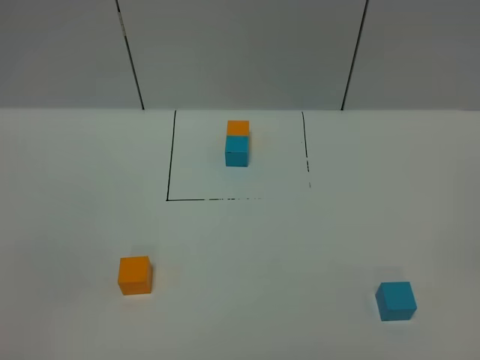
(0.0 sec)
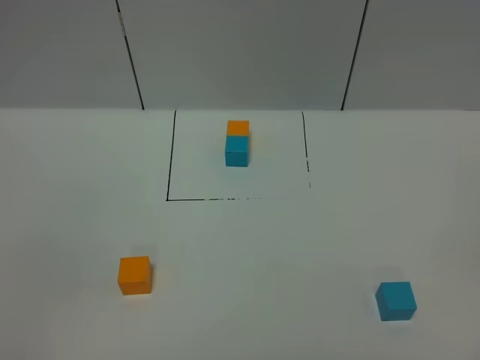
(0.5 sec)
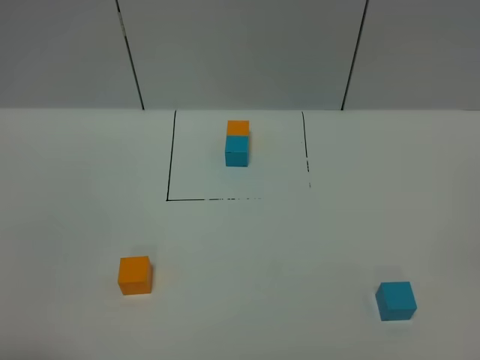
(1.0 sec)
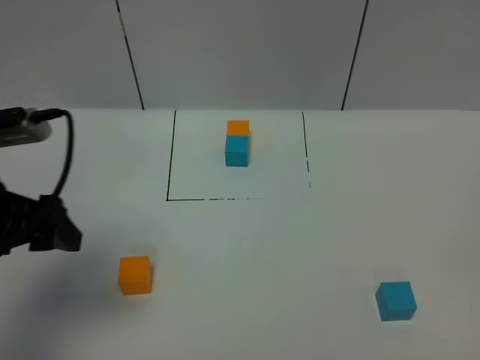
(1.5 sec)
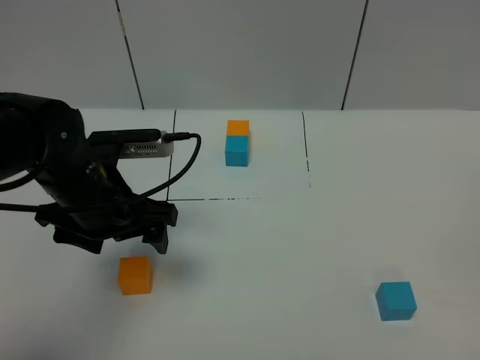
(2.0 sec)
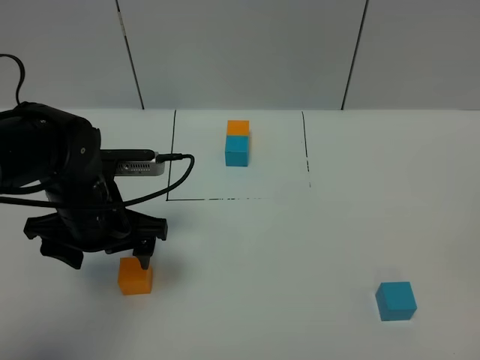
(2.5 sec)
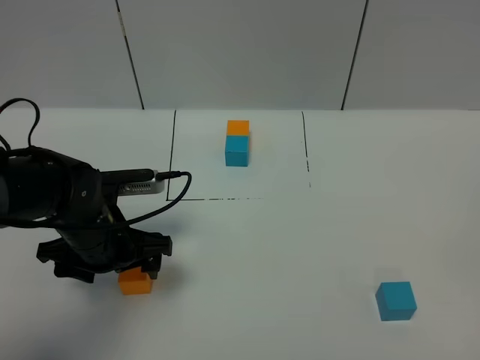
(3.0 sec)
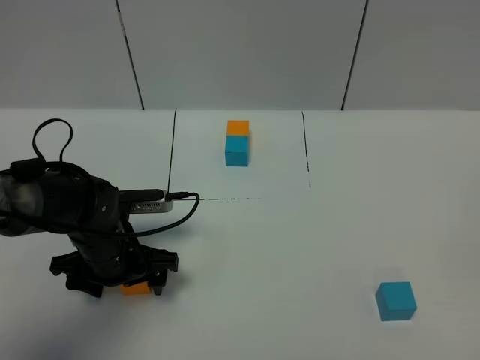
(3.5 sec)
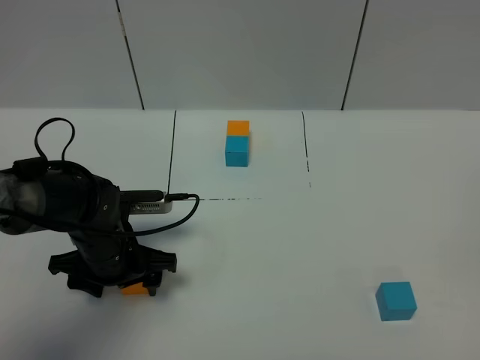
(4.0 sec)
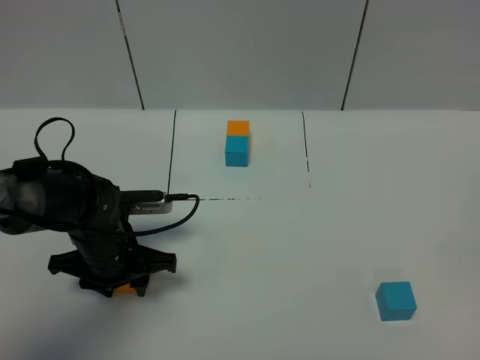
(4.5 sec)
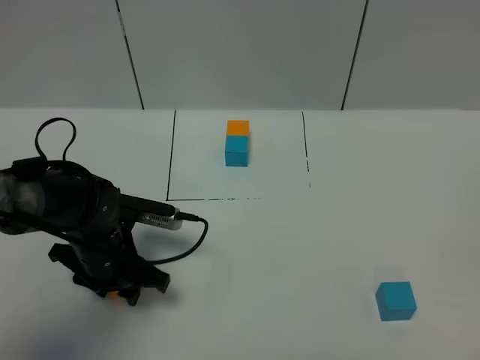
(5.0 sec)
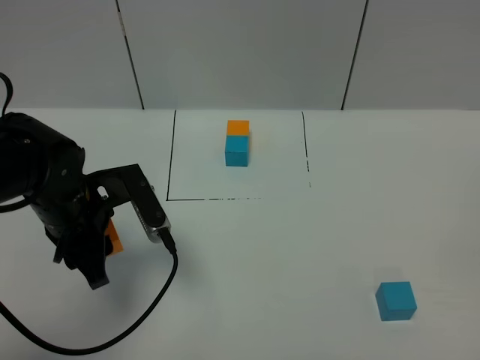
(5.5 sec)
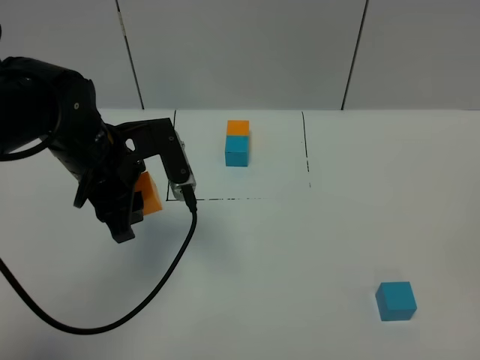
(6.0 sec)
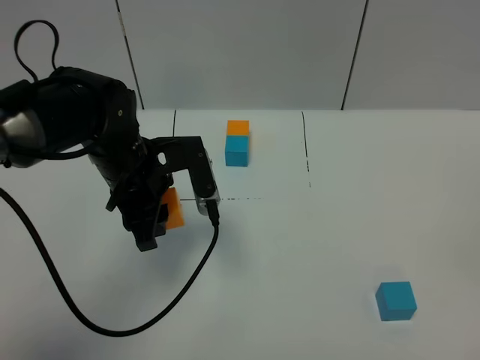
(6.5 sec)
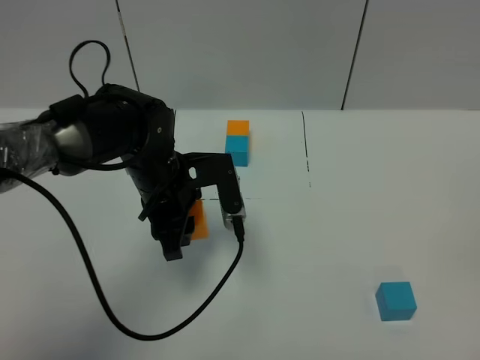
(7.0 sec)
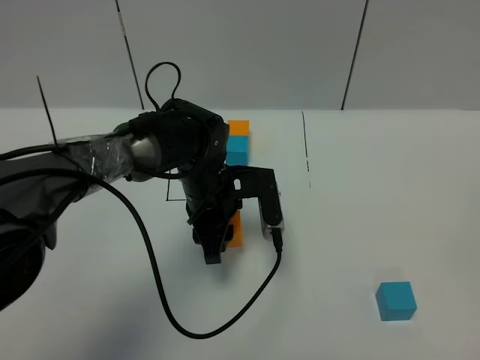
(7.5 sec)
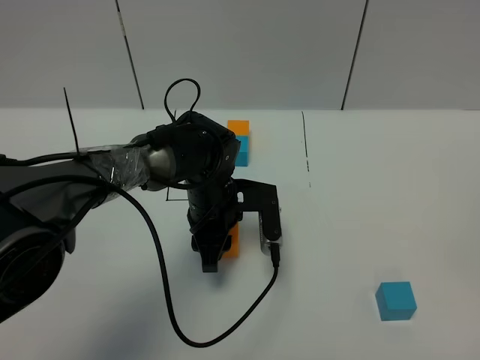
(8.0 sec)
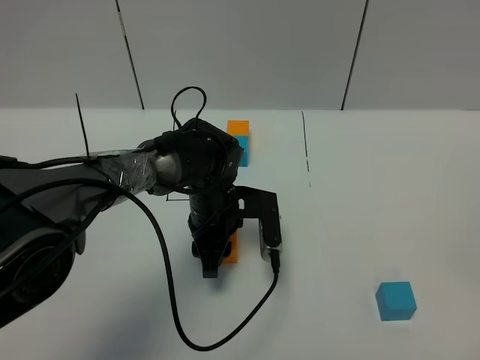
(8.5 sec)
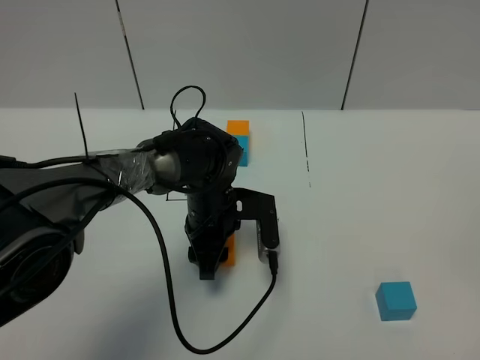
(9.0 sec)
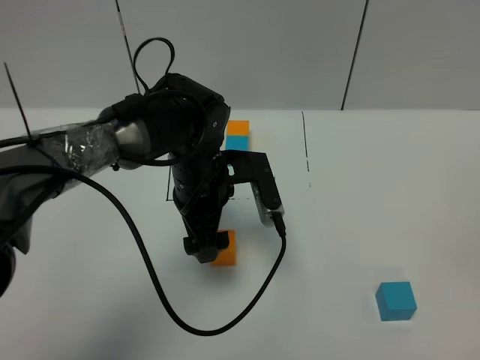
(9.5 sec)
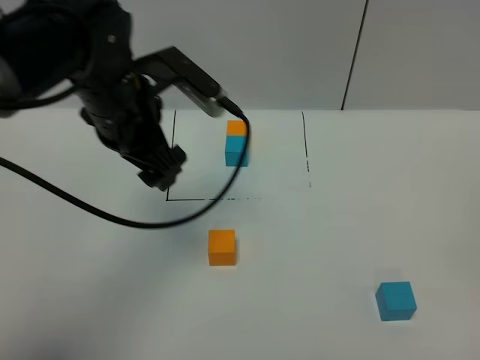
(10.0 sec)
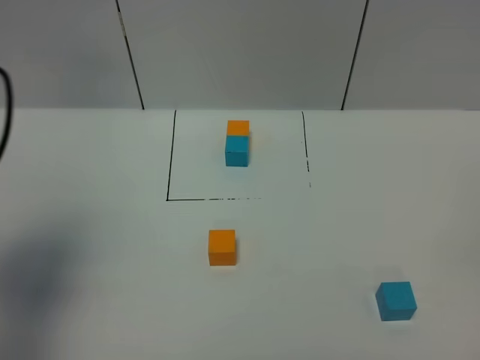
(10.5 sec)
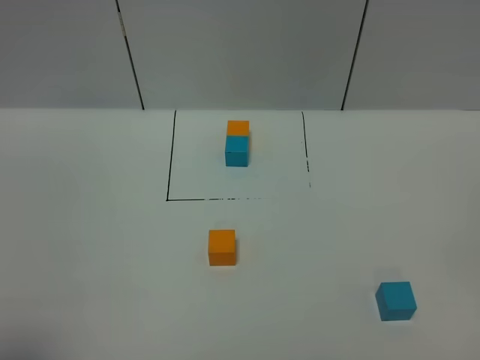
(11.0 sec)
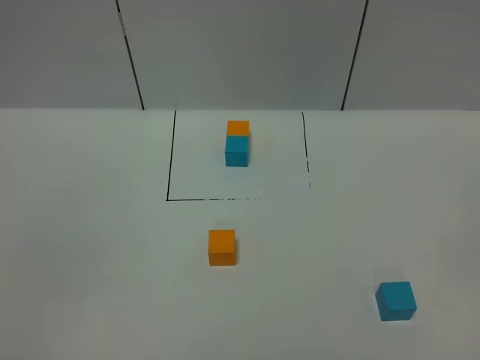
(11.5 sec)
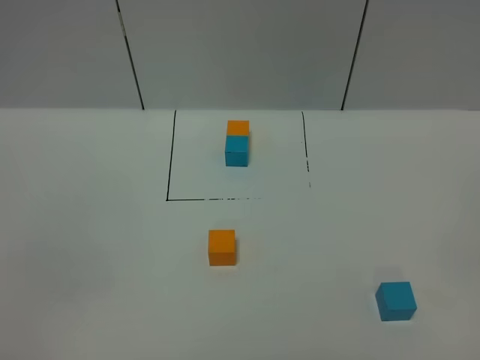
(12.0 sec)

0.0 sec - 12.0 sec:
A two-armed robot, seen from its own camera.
Task of the whole recording: According to the building block template in front, assemble the scattered blocks together.
Step, 1.5 sec - 9.0 sec: Put the orange cube in the center of the table.
0.0 sec - 2.0 sec: The left gripper travels forward by approximately 30 cm.
2.0 sec - 4.0 sec: The left gripper goes some 10 cm downward.
4.0 sec - 6.0 sec: The left gripper heads upward, covering about 15 cm, and closes up.
6.0 sec - 8.0 sec: The left gripper moves downward and to the right, approximately 15 cm.
8.0 sec - 10.0 sec: The left gripper goes about 20 cm upward and to the left, and opens its fingers.
10.0 sec - 12.0 sec: The left gripper shifts some 35 cm backward, and closes up.

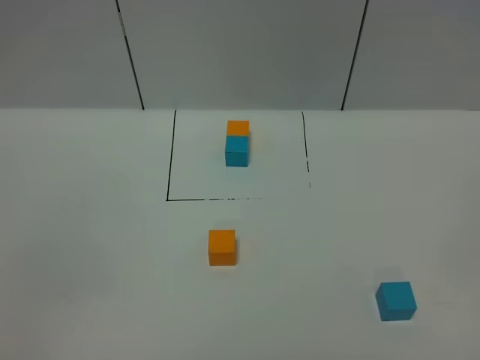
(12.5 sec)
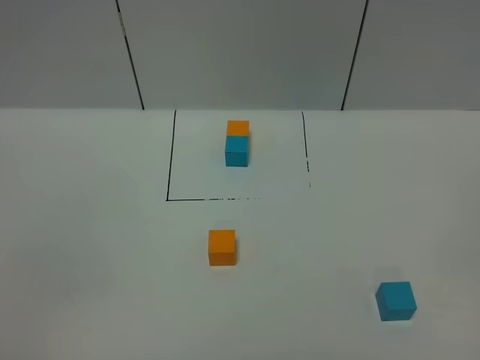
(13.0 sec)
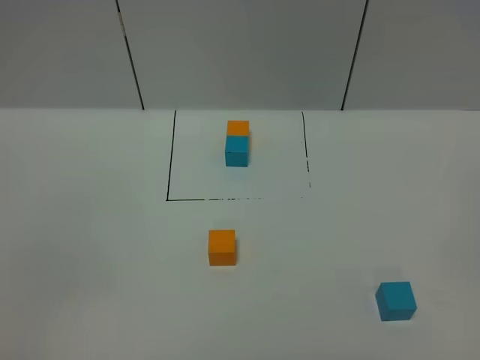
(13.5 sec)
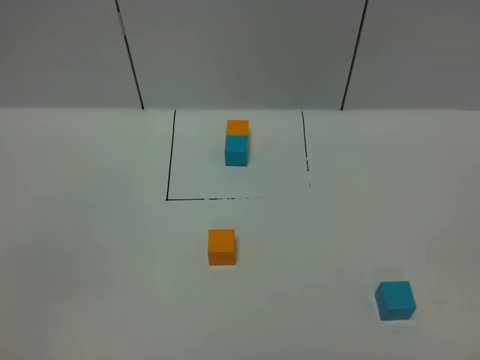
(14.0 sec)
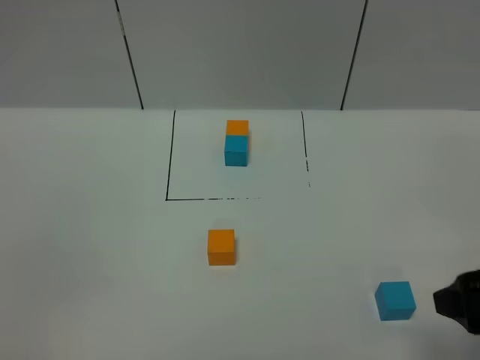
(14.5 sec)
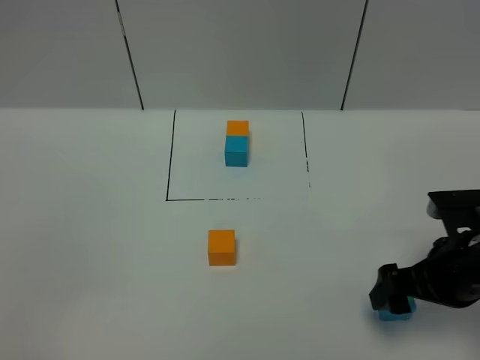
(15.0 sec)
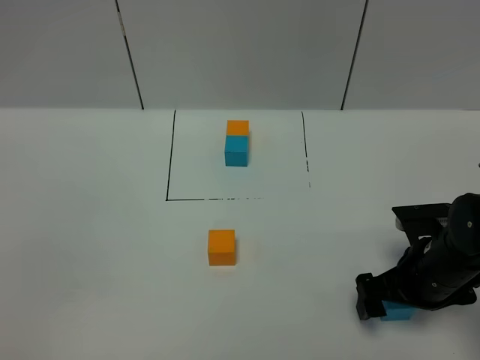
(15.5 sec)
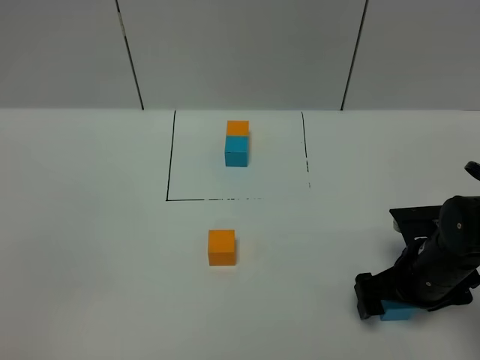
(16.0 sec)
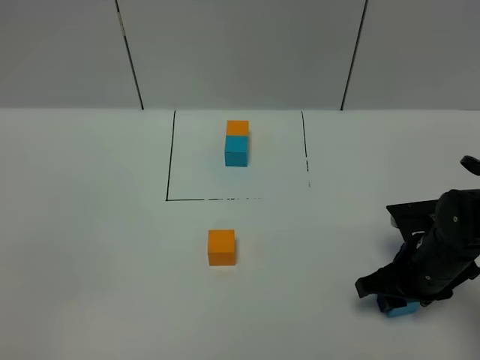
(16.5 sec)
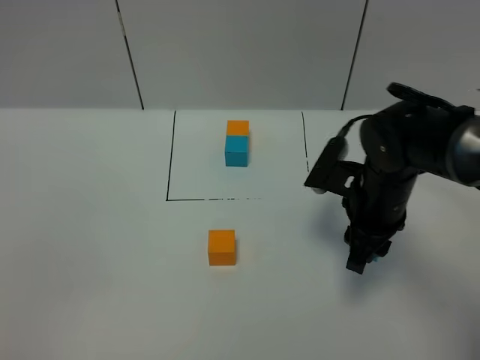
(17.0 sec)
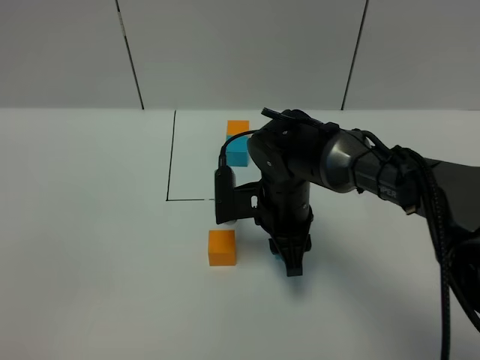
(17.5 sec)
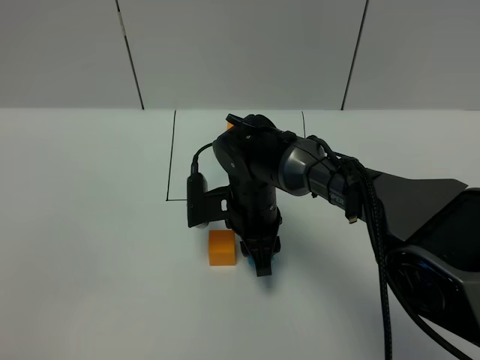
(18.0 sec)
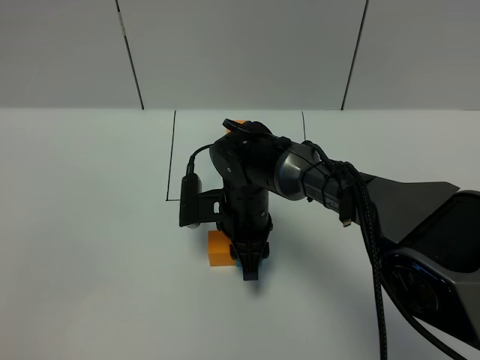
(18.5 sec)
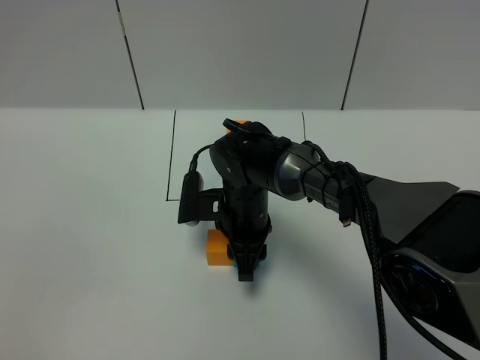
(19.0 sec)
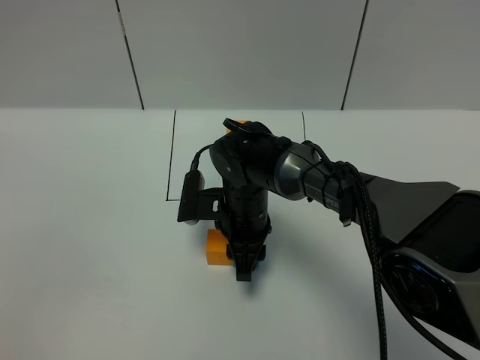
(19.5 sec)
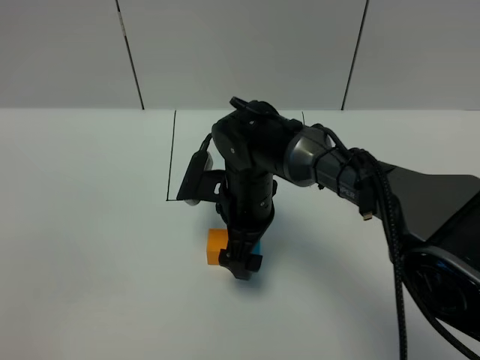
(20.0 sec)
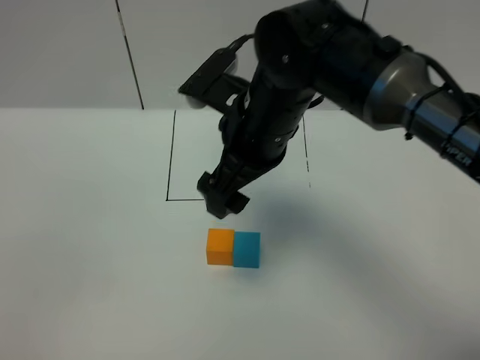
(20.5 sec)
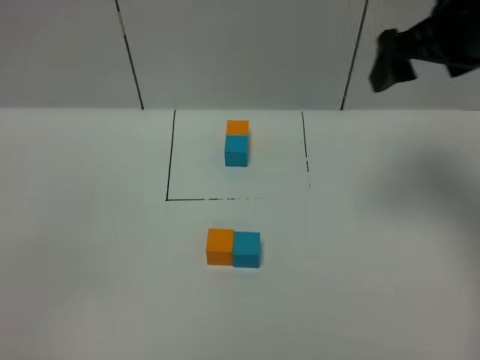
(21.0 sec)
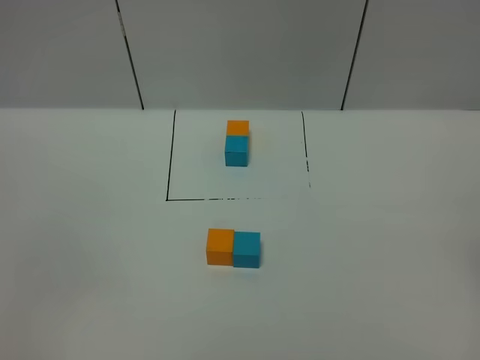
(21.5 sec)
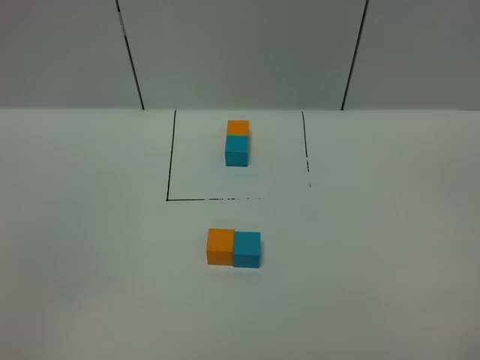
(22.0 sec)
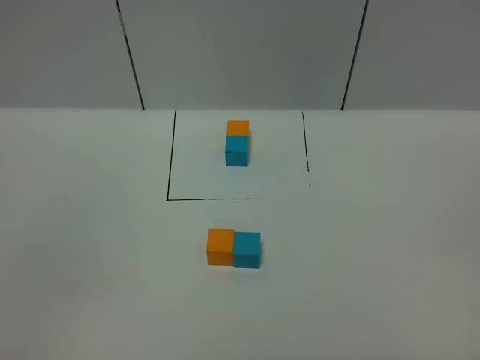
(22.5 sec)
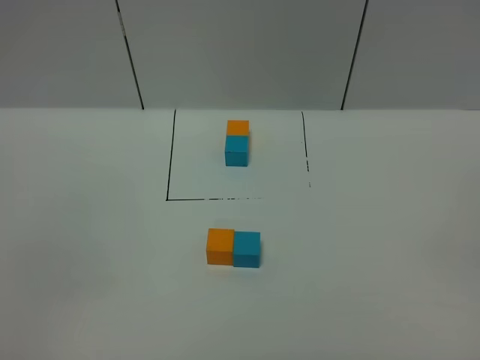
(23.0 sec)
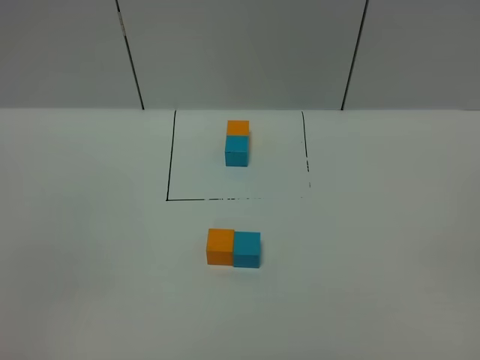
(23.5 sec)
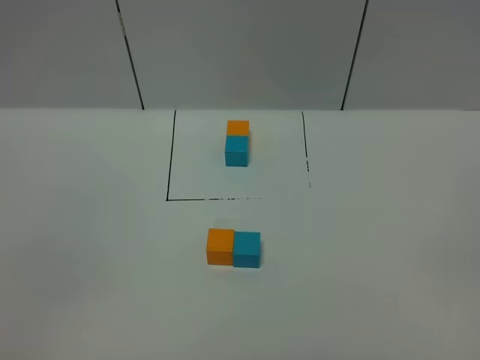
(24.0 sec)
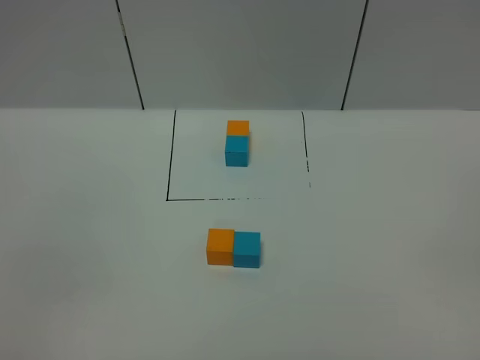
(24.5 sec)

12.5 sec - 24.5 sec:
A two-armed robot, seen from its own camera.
Task of the whole recording: According to the building block template in front, assemble the scattered blocks together.
Step, 12.5 sec - 19.5 sec: Put the blue cube on the right of the orange cube.
12.5 sec - 14.5 sec: The right gripper shifts approximately 20 cm forward, and opens up.
14.5 sec - 16.5 sec: The right gripper is displaced downward and forward by approximately 20 cm, and closes up.
16.5 sec - 18.5 sec: The right gripper shifts some 25 cm to the left.
18.5 sec - 20.5 sec: The right gripper is displaced upward by approximately 20 cm, and opens up.
20.5 sec - 22.5 sec: The right gripper goes approximately 40 cm backward and to the right.

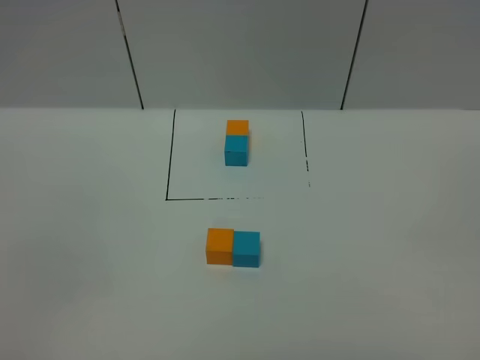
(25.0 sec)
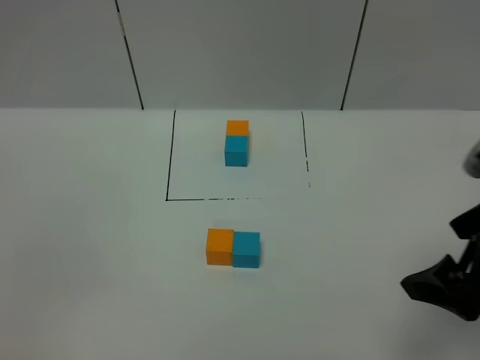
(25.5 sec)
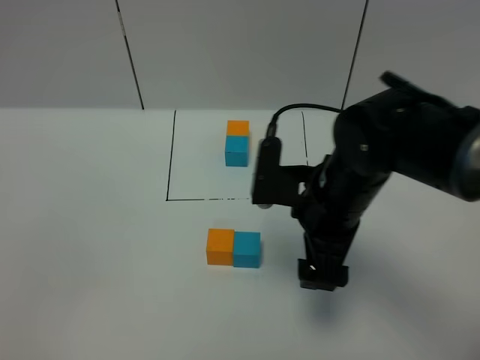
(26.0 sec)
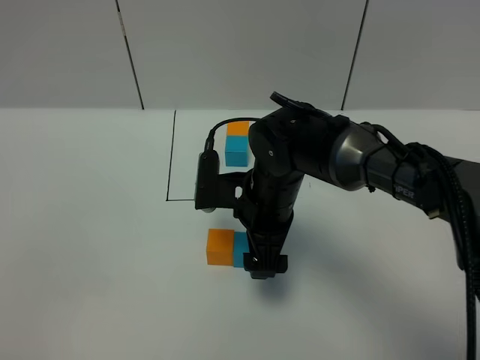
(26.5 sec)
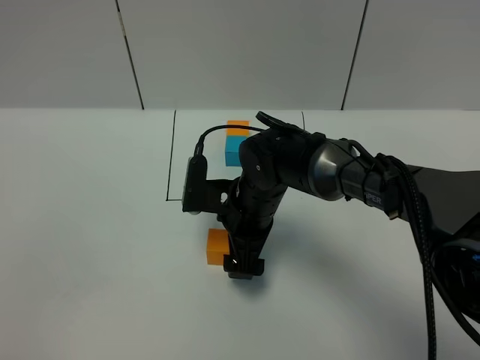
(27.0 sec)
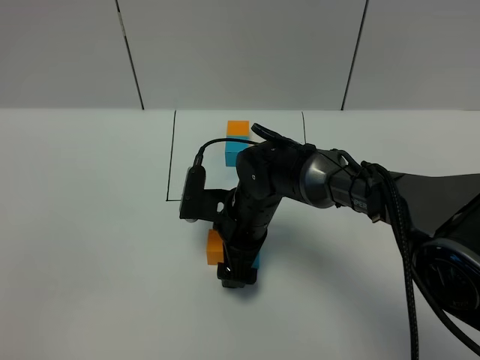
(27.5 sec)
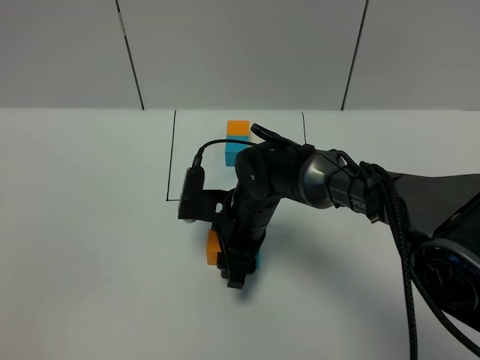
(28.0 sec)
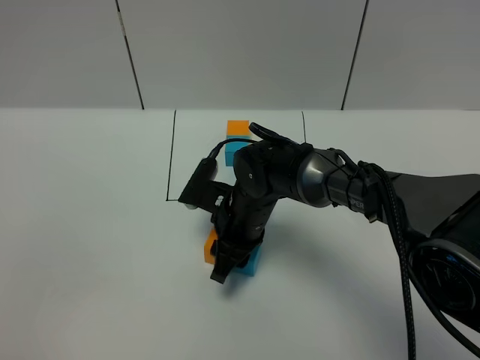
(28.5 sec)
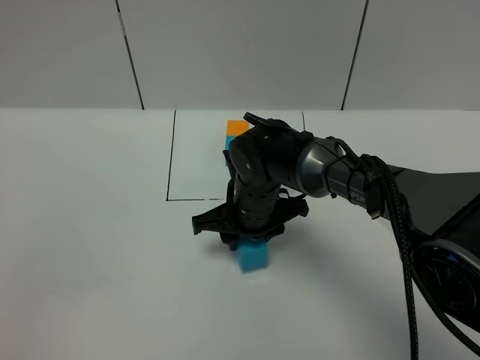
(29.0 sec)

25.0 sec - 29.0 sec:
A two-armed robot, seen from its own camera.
Task of the whole recording: According to the building block template in front, assemble the scattered blocks together.
25.0 sec - 27.0 sec: The right gripper is displaced forward, to the left and downward by approximately 50 cm.
27.0 sec - 29.0 sec: The right gripper closes its fingers.
